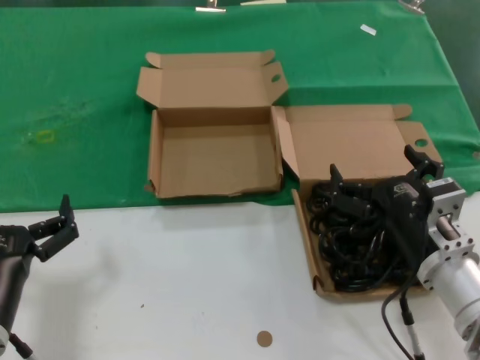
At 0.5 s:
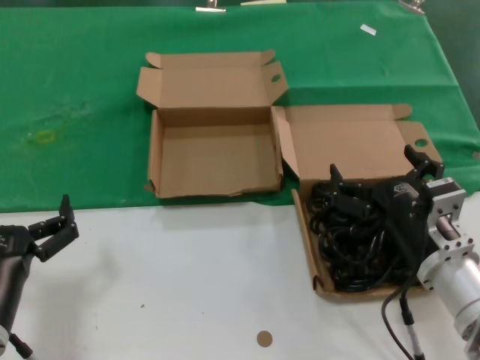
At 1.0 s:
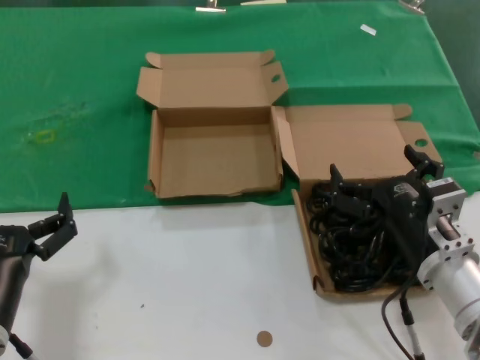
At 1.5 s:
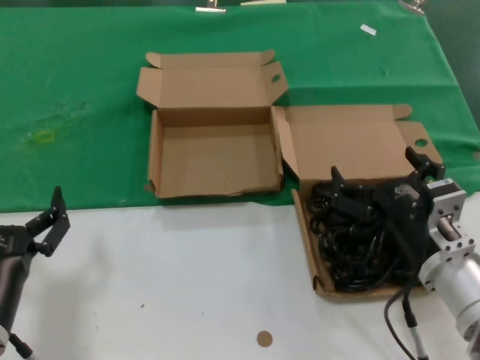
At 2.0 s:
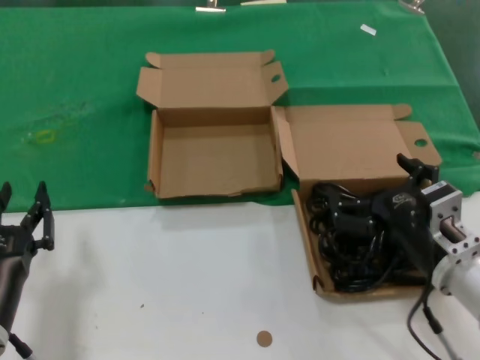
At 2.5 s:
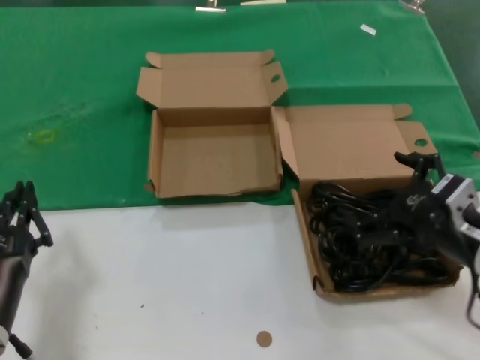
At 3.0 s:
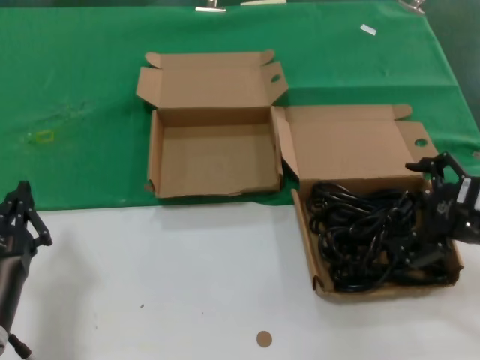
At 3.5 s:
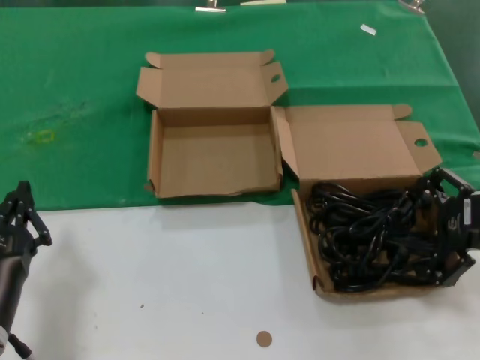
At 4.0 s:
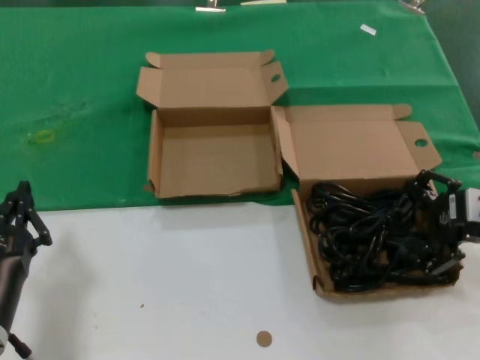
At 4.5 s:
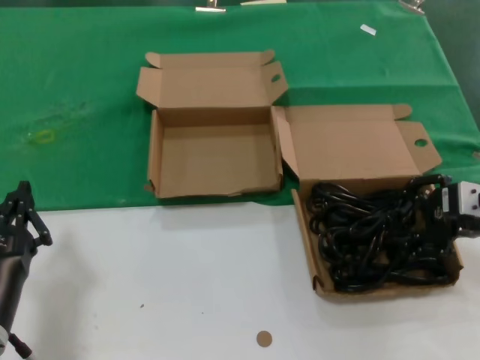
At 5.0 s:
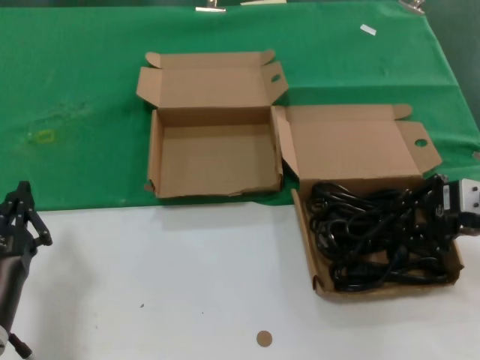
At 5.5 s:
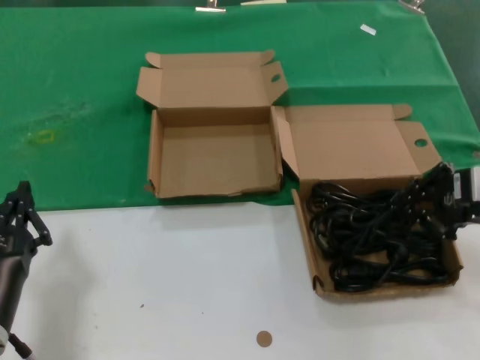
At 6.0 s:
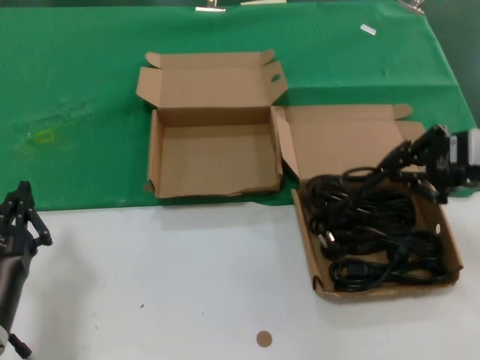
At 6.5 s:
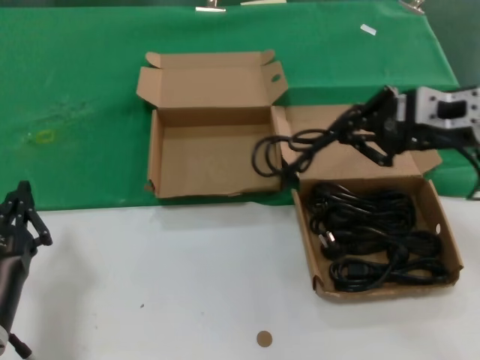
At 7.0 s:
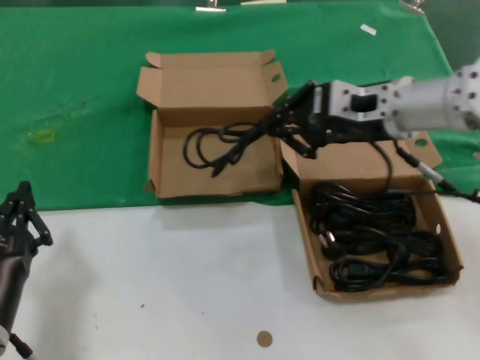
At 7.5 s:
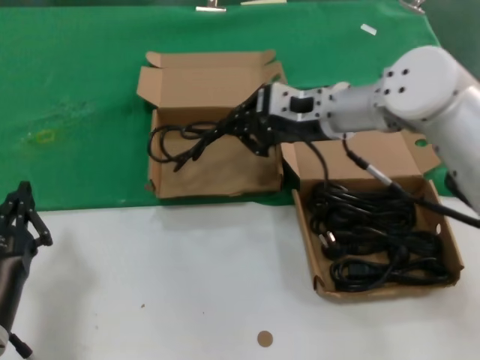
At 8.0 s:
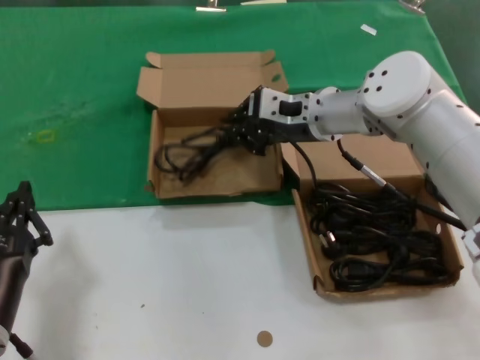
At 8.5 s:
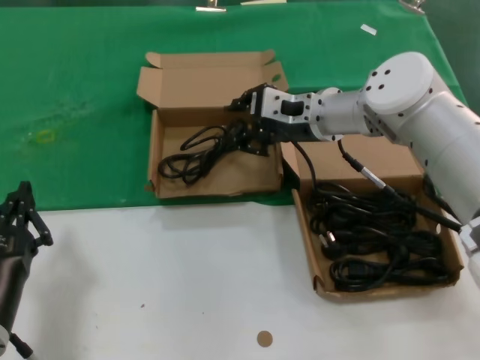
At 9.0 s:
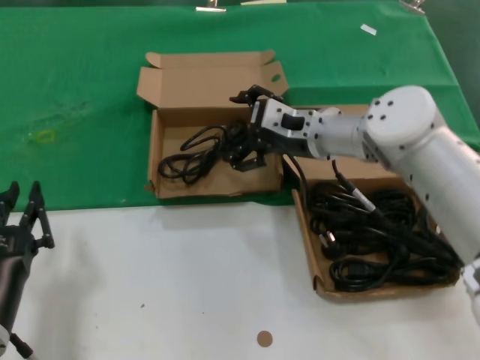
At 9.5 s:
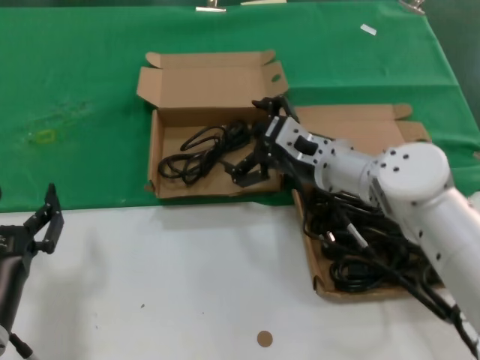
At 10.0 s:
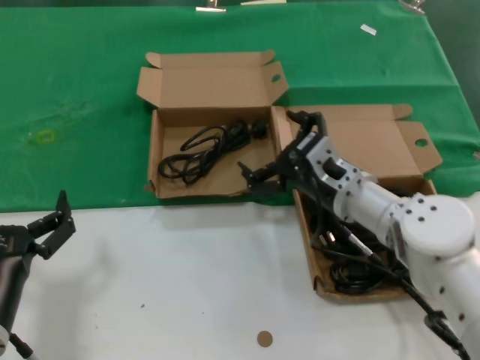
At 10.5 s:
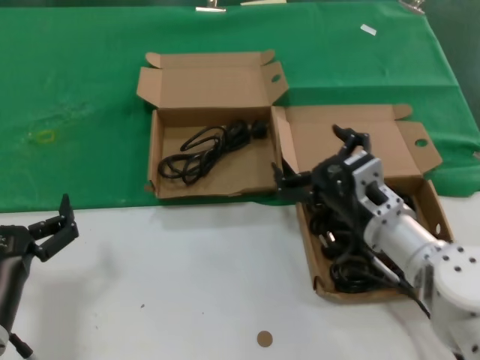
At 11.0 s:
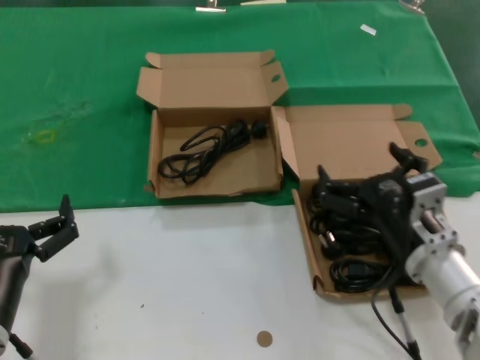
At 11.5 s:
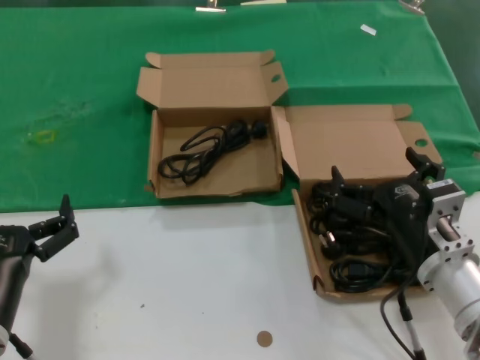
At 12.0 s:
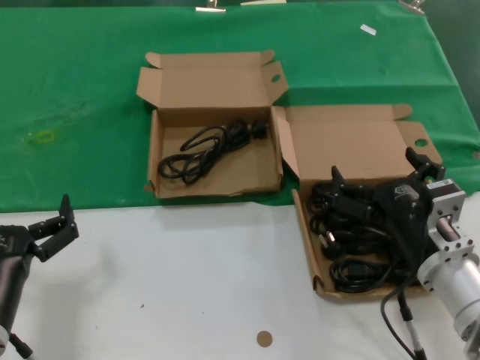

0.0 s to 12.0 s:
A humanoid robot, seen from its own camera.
Task of the whole recording: take the parts from the box containing them and put them into an empty box.
Step, 0.0 to 4.5 s: Grasp the data cable.
Step, 5.0 to 8.0 s: Place the data cable in the another box.
0.0 to 2.0 s: The hands move only a little.
2.0 to 4.0 s: The right hand goes some 15 cm to the right, upward and forward.
4.0 to 6.0 s: The right hand shifts about 5 cm upward.
6.0 to 8.0 s: The right hand heads to the left and forward, covering approximately 25 cm.
8.0 to 10.0 s: The right hand heads downward and backward, covering some 15 cm.
10.0 to 12.0 s: The right hand moves backward and to the right, roughly 15 cm.

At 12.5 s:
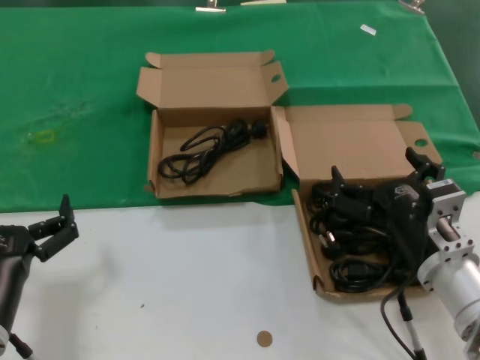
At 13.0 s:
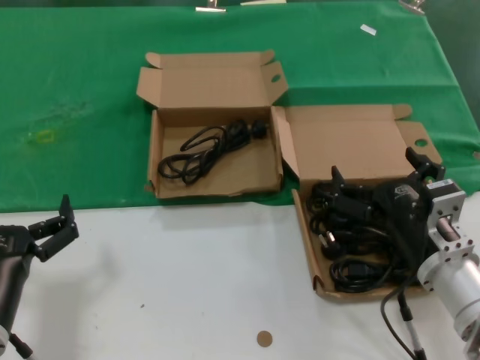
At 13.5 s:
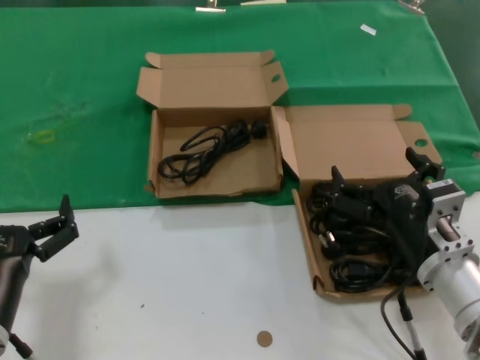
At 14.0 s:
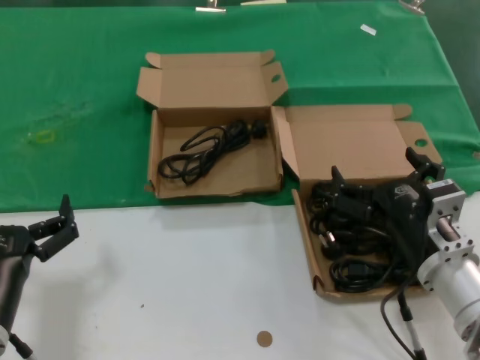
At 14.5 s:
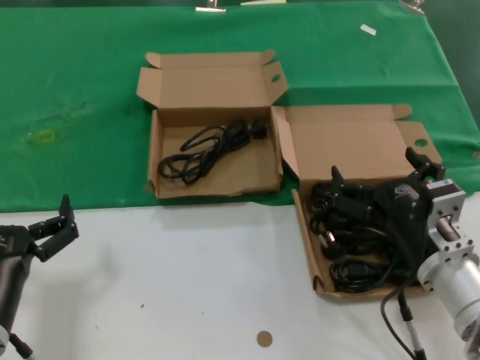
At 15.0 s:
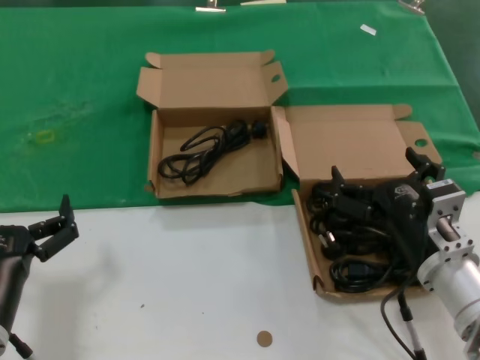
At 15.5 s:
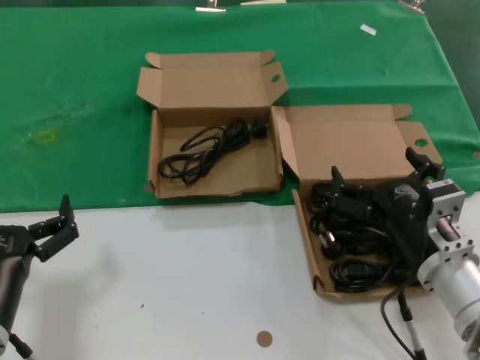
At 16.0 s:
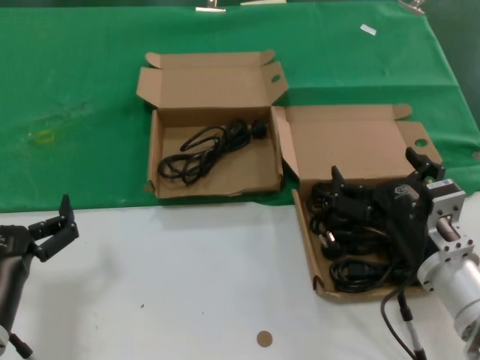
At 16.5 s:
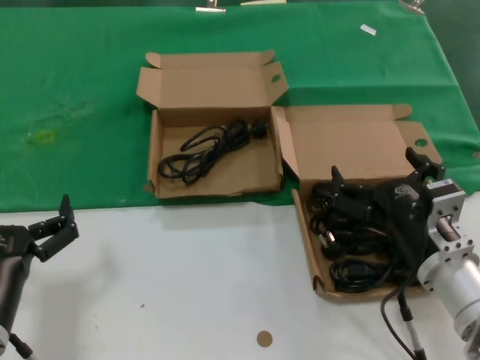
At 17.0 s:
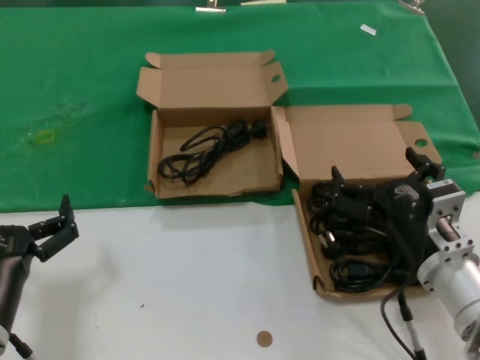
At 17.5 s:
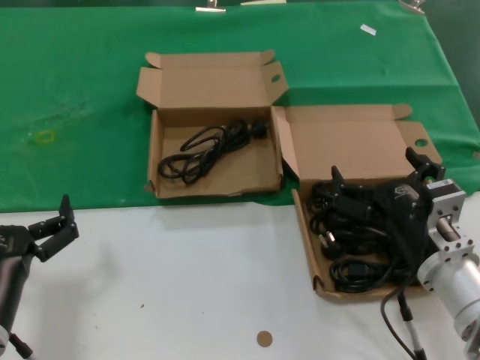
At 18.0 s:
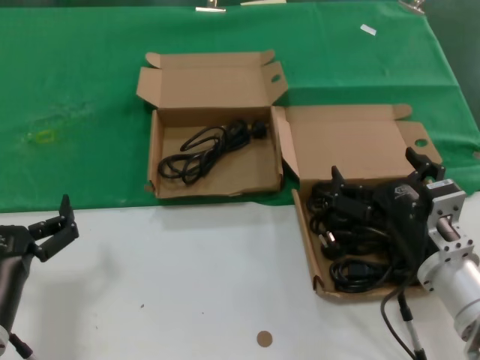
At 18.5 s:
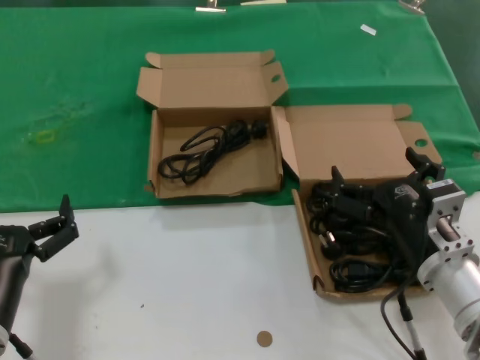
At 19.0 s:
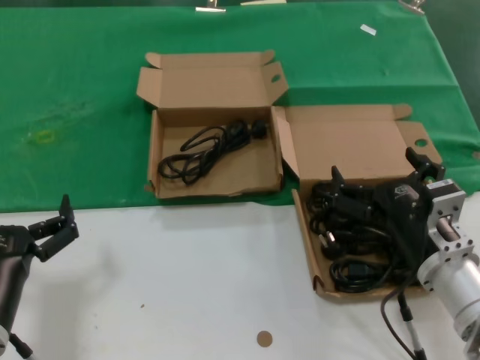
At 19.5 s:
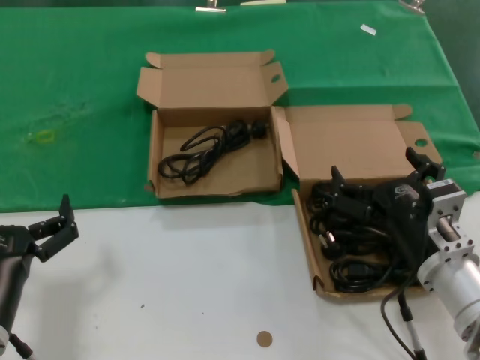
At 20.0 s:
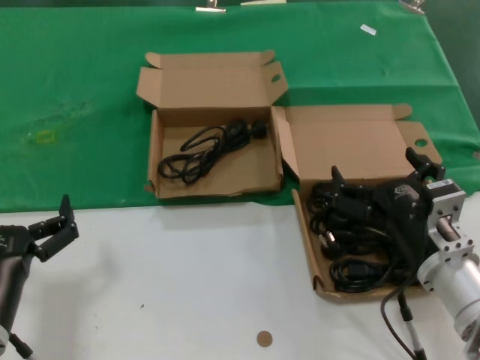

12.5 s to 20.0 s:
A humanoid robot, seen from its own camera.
Task of the whole recording: take the parts from the box containing them and put them into an empty box.
12.5 to 20.0 s: Neither hand changes place.

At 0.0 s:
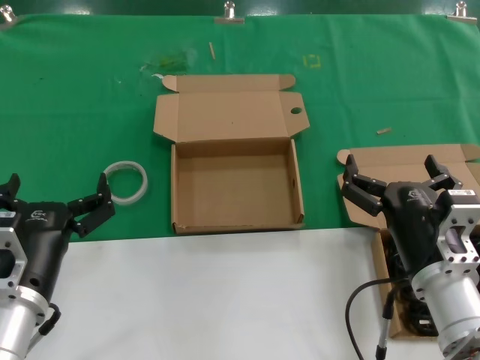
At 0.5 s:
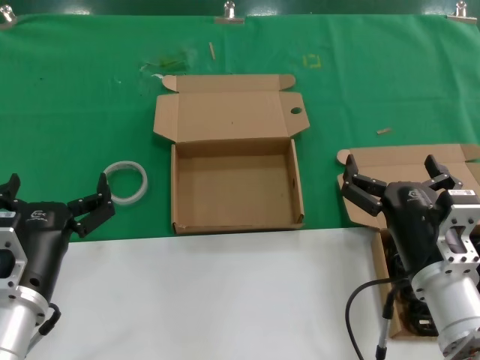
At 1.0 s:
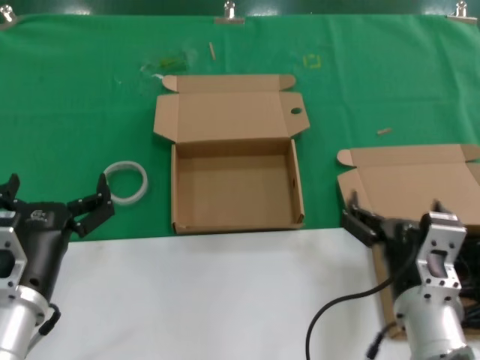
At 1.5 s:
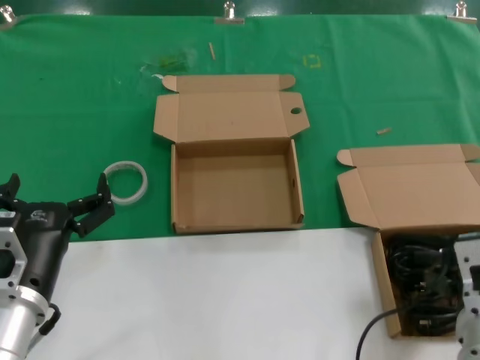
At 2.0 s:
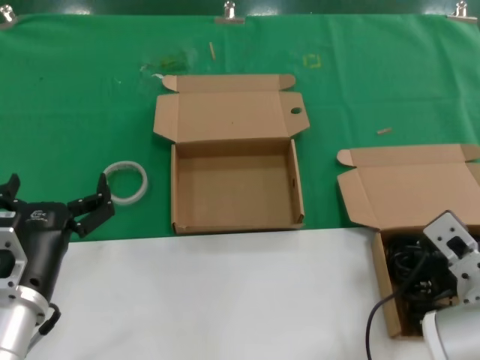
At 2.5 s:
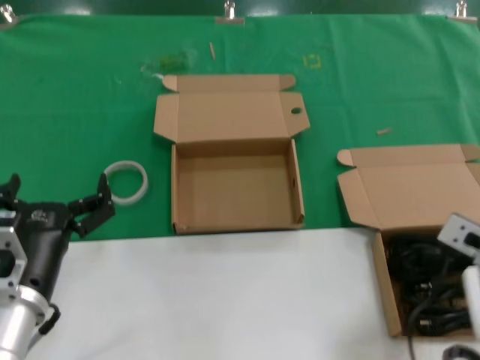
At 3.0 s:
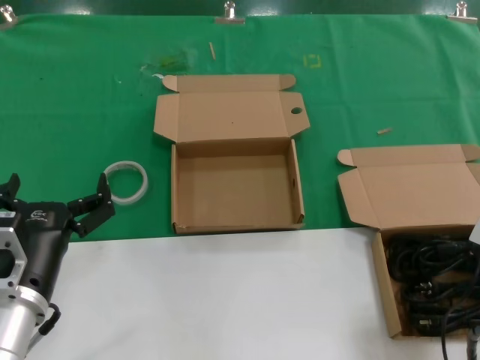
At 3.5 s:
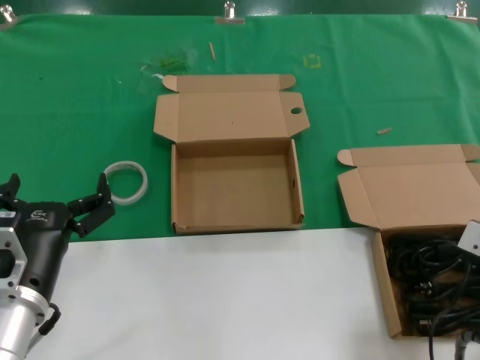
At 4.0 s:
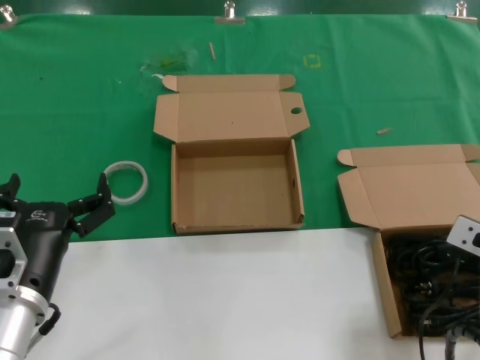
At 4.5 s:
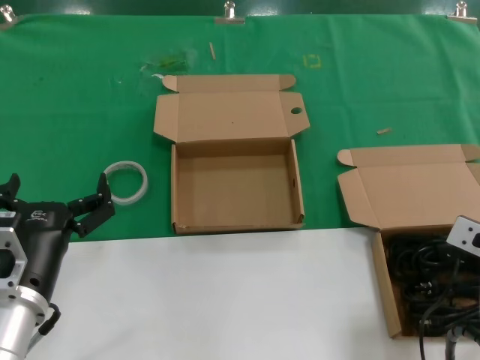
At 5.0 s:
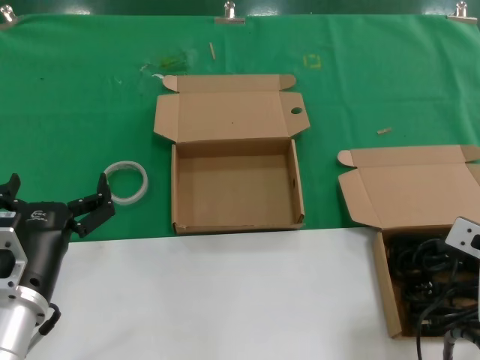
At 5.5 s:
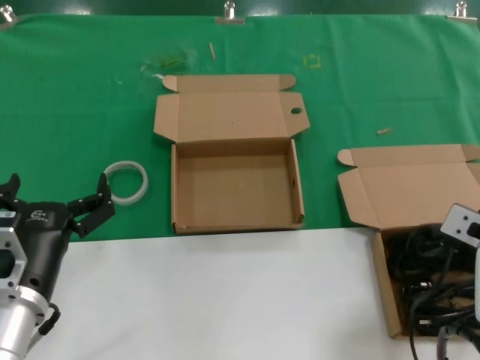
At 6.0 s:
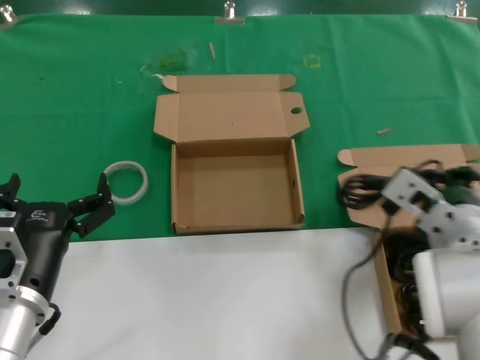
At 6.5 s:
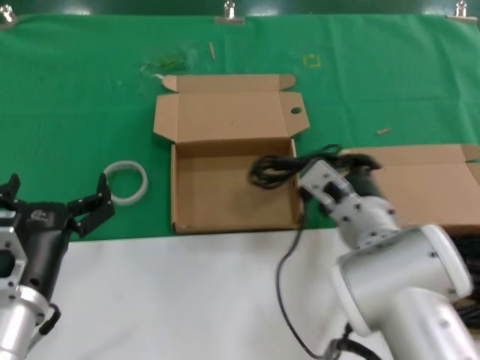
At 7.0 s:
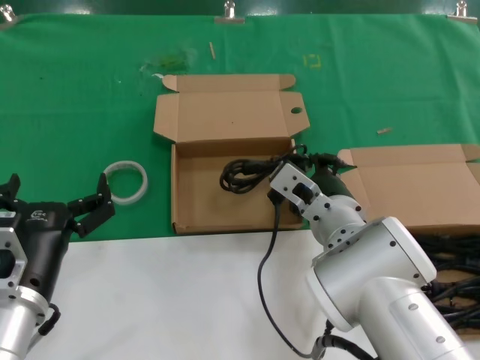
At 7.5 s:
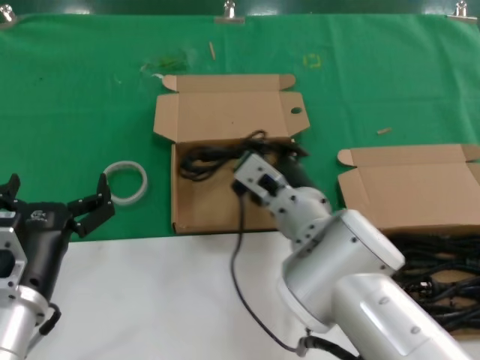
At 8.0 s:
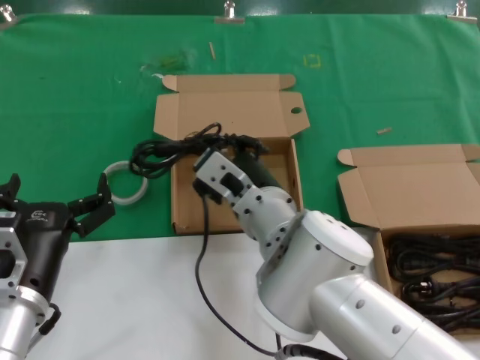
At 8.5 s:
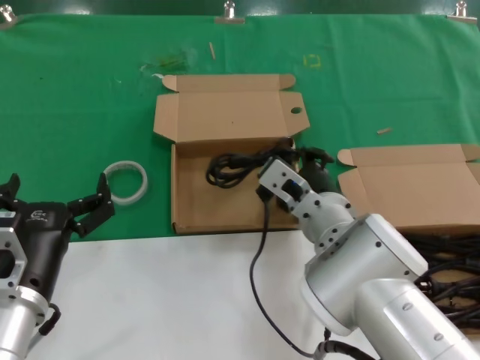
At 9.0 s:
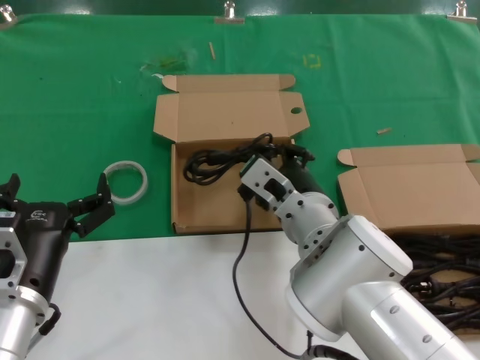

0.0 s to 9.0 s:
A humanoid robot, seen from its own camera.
Task of the whole recording: take the parts from the box containing them and put them into an empty box.
Step, 0.0 to 4.5 s: Grasp the data cable.
2.0 to 4.5 s: The right hand shifts roughly 5 cm to the right.
4.5 to 7.0 s: The right hand shifts about 20 cm to the left.
